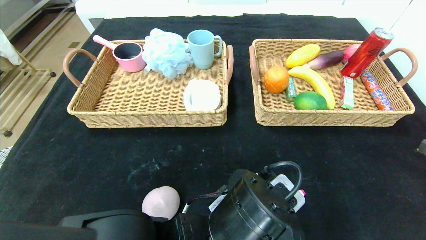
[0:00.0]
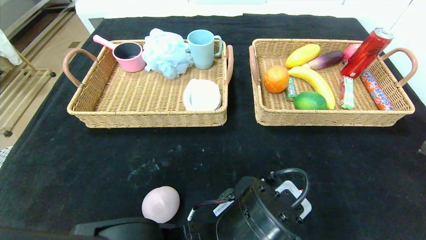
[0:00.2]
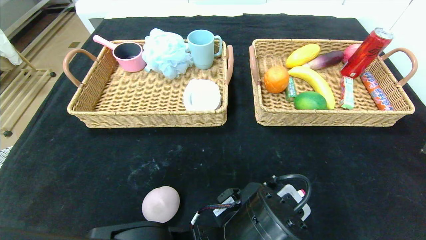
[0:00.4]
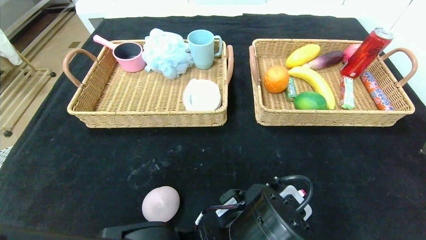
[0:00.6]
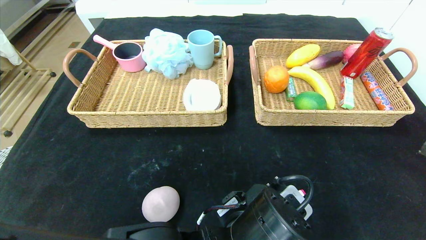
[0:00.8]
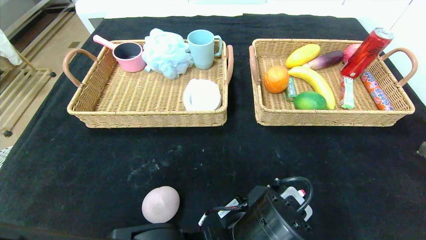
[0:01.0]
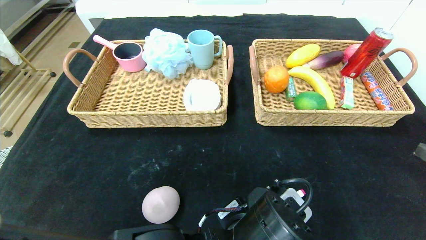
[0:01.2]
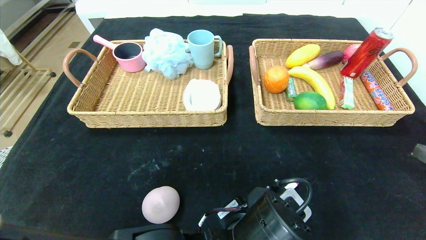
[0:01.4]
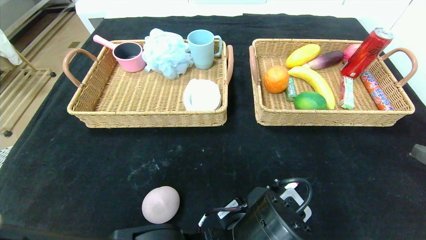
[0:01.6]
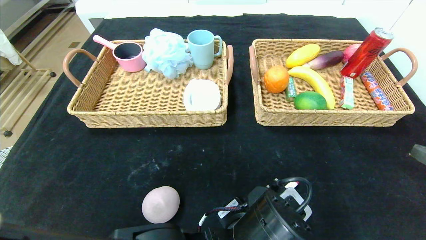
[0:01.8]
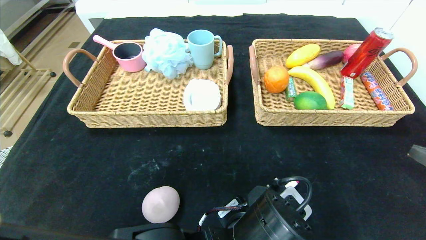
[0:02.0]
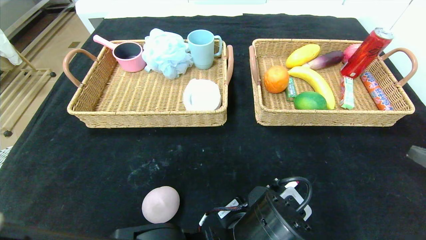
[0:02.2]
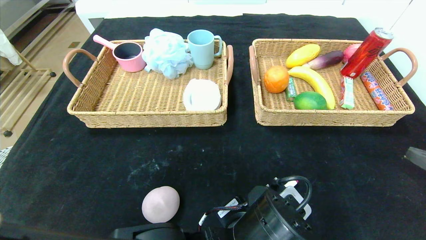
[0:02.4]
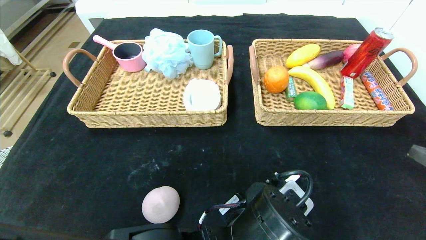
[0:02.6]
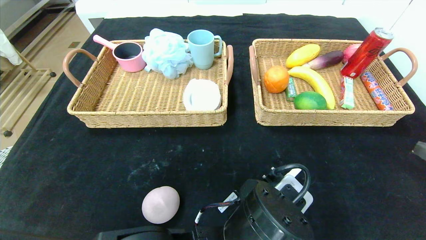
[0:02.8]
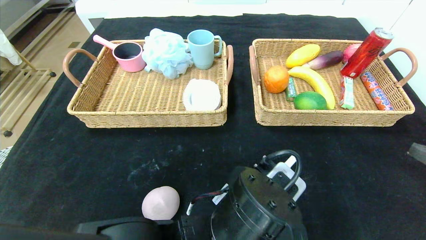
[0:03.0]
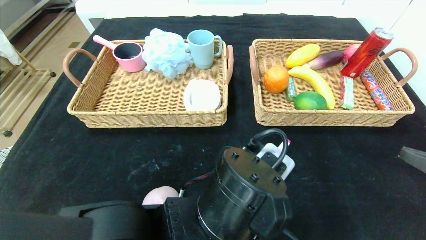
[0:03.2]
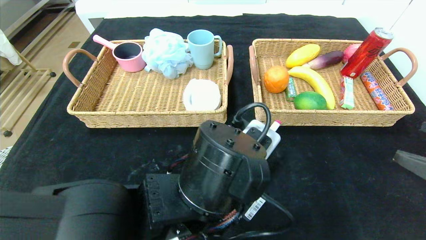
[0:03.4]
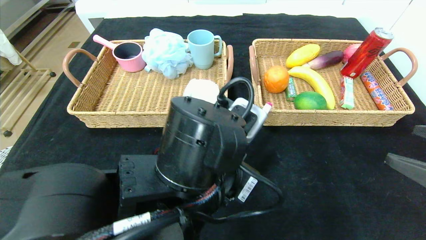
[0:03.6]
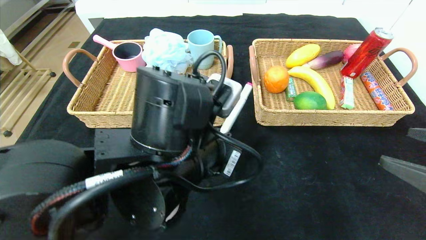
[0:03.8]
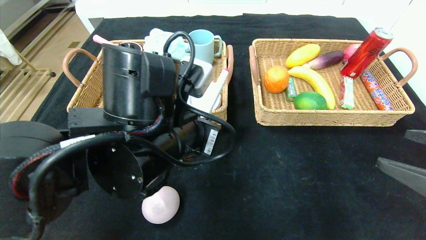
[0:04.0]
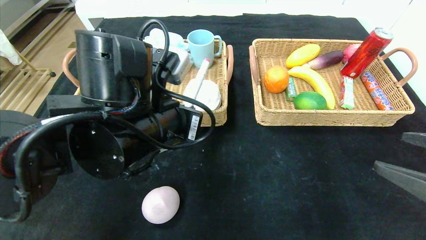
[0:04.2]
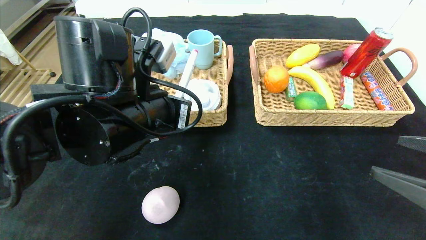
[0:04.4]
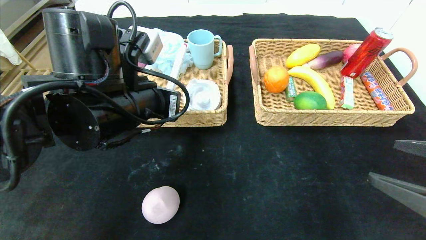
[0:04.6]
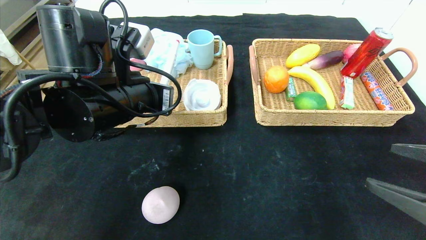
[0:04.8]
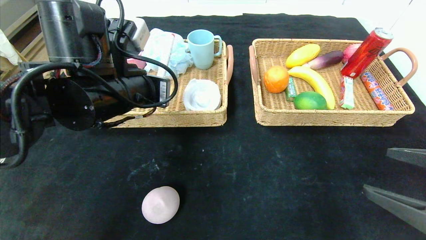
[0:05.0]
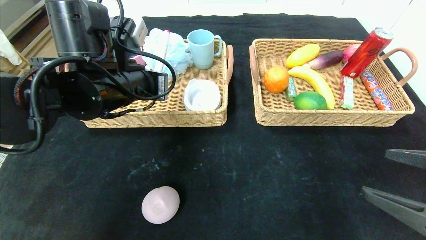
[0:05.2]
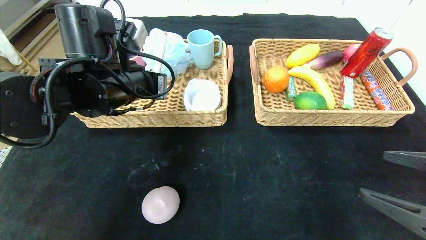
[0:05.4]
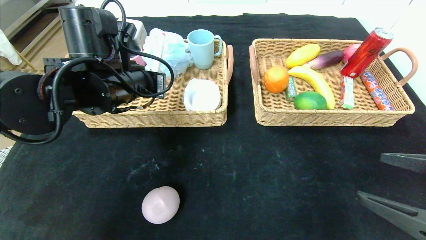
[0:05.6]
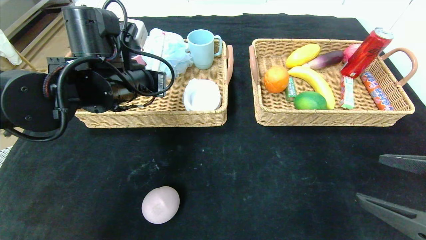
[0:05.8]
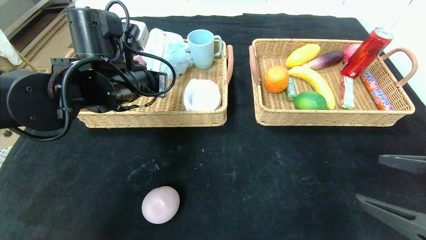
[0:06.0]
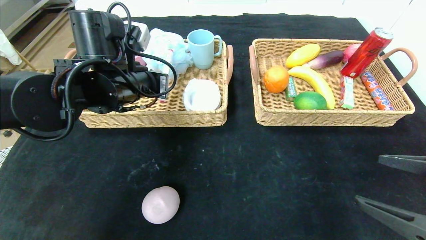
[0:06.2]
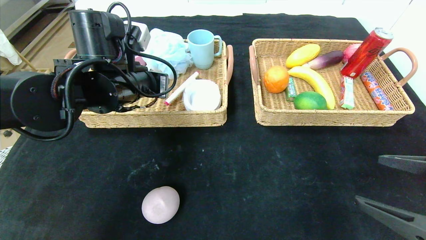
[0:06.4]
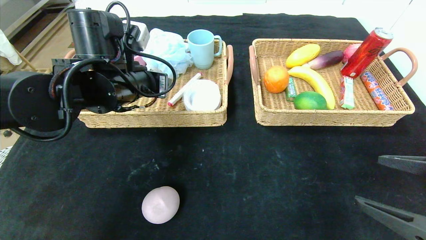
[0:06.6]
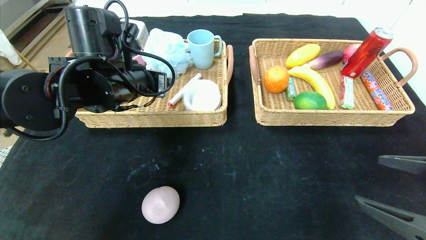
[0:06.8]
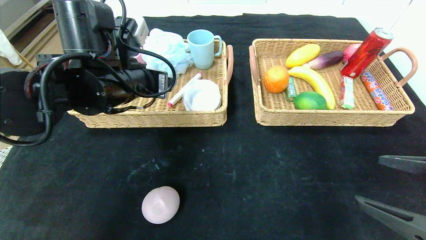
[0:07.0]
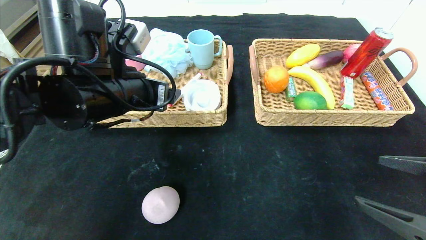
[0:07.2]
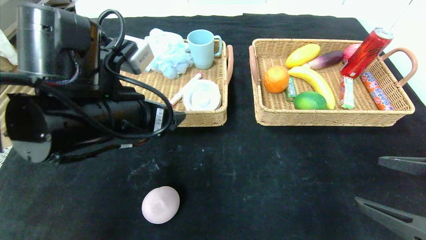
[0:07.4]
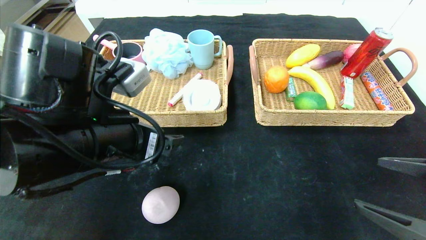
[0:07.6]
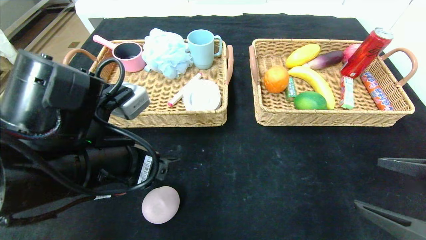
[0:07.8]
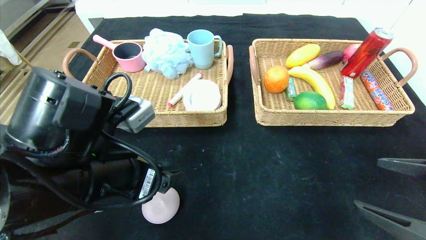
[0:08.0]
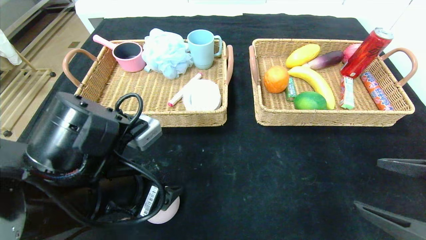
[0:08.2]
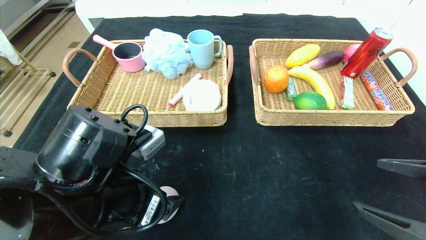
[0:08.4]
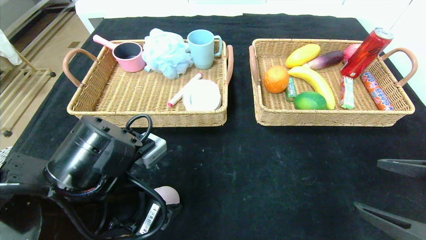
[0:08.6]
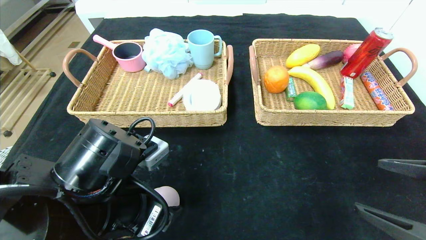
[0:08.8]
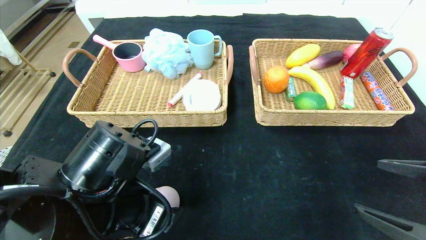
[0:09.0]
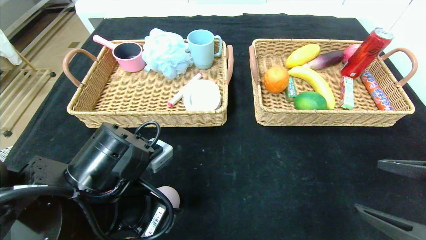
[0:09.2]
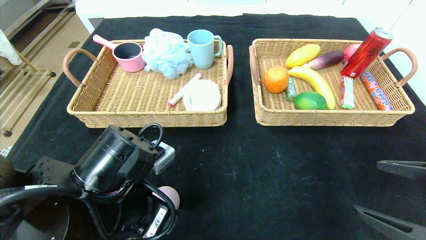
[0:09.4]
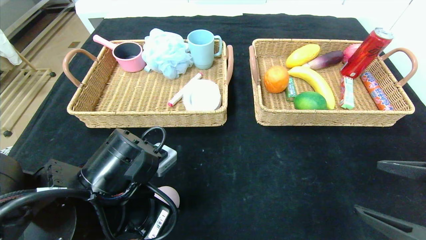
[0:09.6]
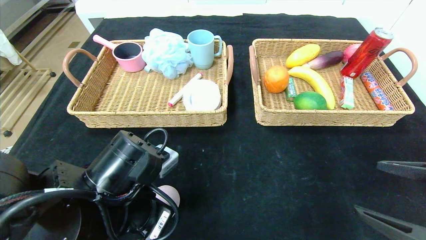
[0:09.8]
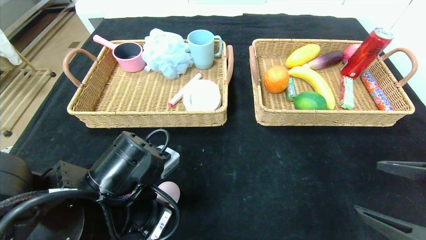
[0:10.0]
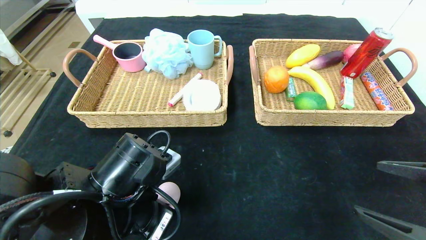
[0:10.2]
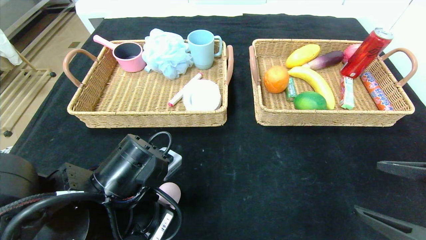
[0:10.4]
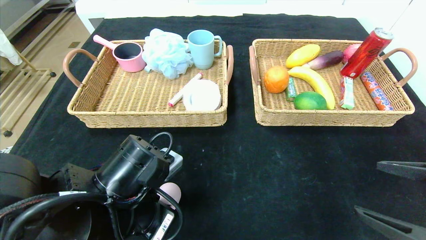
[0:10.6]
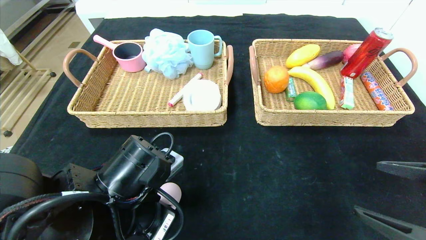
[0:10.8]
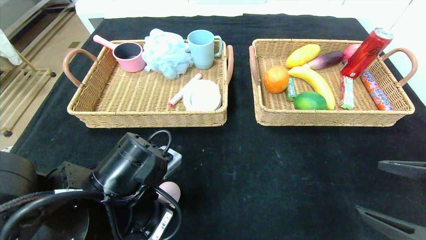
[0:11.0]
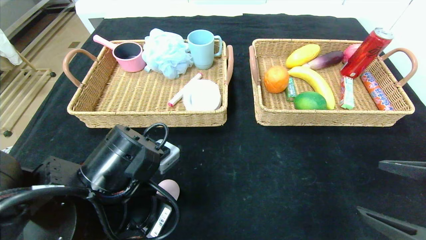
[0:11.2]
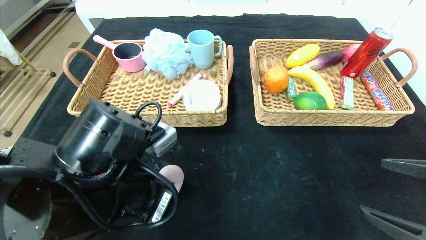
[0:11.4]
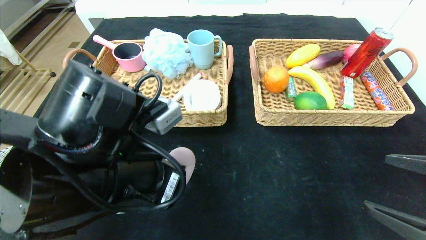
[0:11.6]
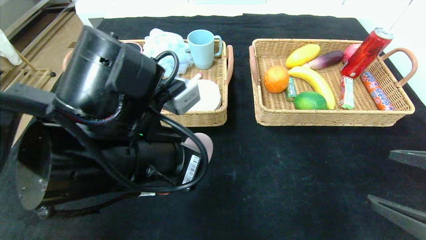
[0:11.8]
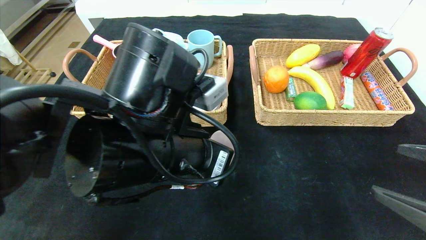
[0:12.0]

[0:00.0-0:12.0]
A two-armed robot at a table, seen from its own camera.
Step, 0:00.0 to 0:06.4: Grasp the pink marker and put it in the left basket.
0:00.0 to 0:01.6: The left gripper closes.
0:01.6 to 0:03.0: There are only small adjustments of the grippers.
0:03.0 to 0:04.4: The left gripper shifts about 20 cm to the left, upward and forward.
0:04.4 to 0:06.0: The left gripper shifts approximately 10 cm forward.
0:06.0 to 0:07.6: The left gripper heads backward, covering some 15 cm, and opens up.
0:07.6 to 0:09.0: The left gripper travels downward by approximately 5 cm.
0:09.0 to 0:10.4: The left gripper closes its fingers.
0:10.4 to 0:12.0: The left gripper is displaced upward and to the right by about 10 cm.

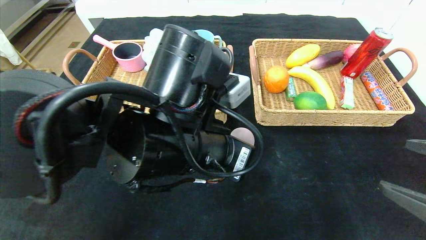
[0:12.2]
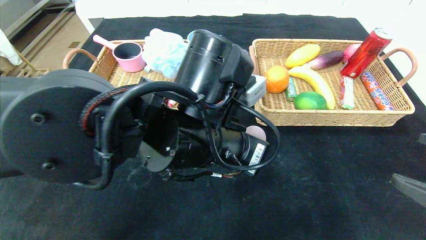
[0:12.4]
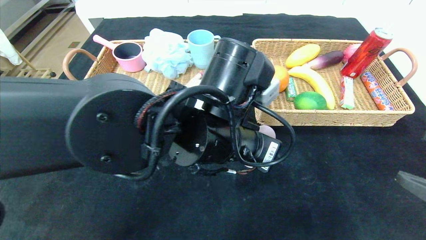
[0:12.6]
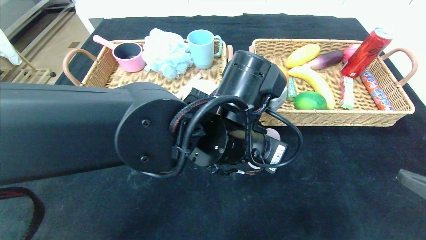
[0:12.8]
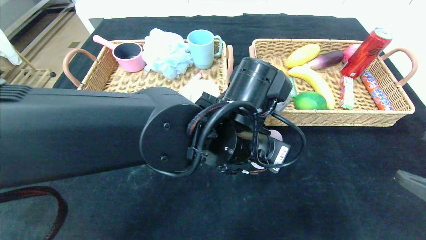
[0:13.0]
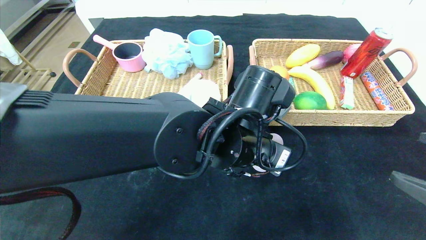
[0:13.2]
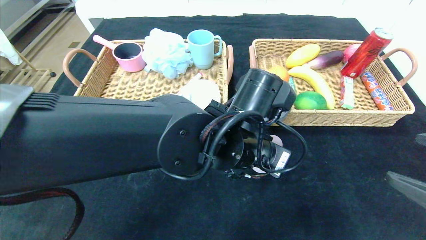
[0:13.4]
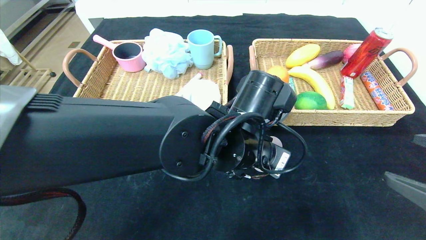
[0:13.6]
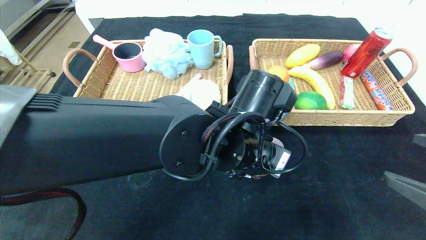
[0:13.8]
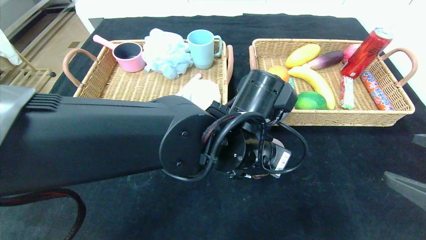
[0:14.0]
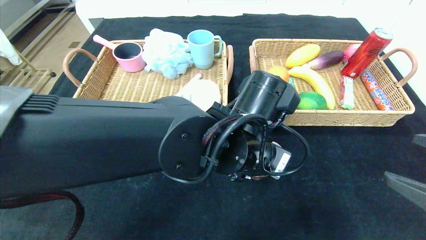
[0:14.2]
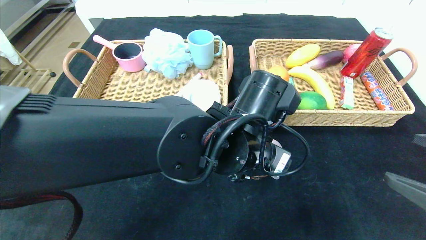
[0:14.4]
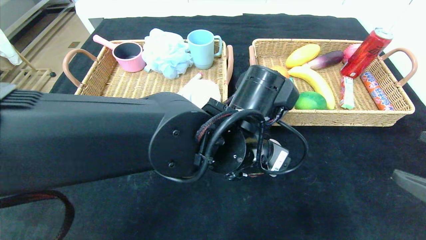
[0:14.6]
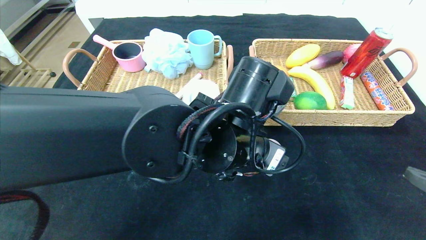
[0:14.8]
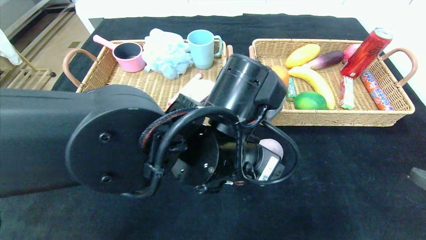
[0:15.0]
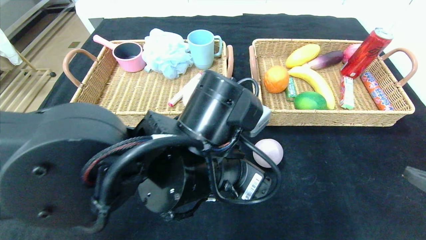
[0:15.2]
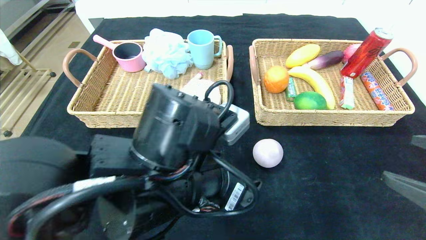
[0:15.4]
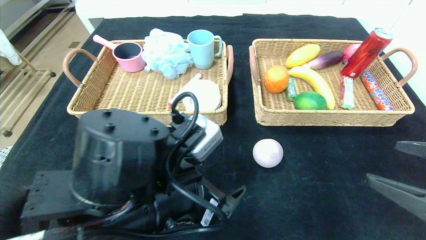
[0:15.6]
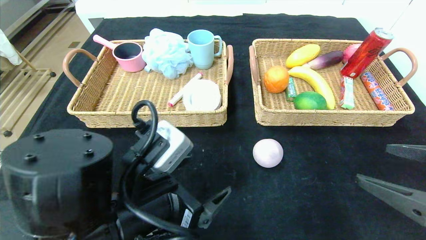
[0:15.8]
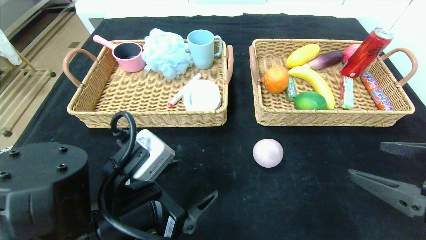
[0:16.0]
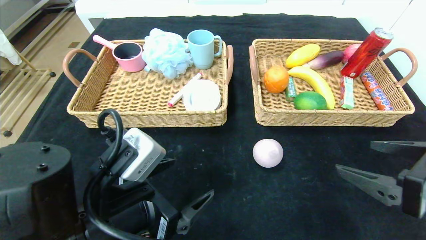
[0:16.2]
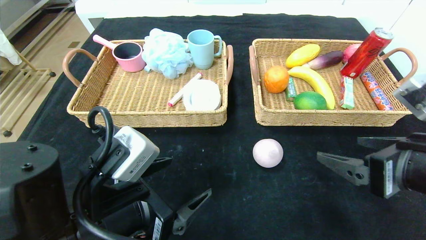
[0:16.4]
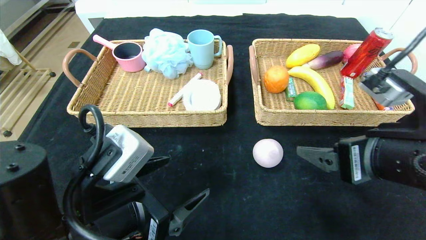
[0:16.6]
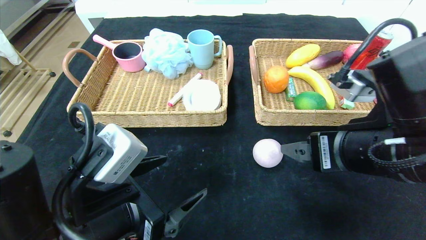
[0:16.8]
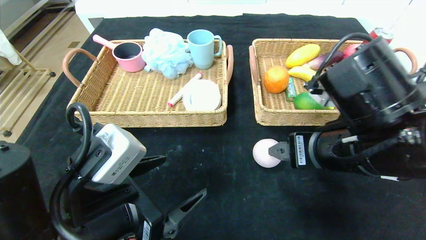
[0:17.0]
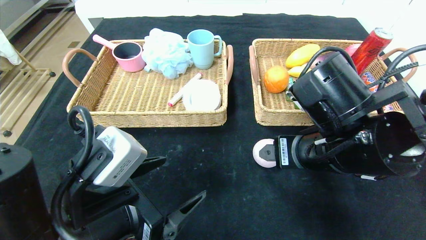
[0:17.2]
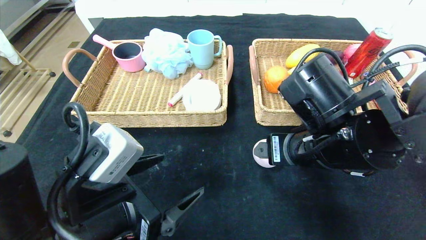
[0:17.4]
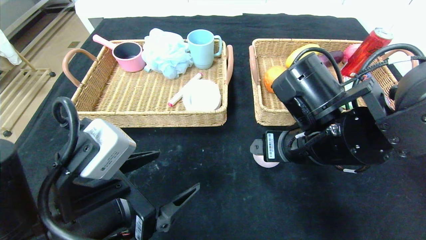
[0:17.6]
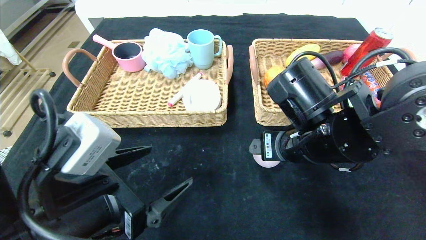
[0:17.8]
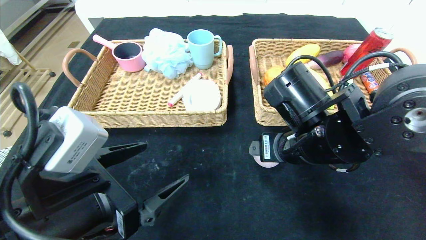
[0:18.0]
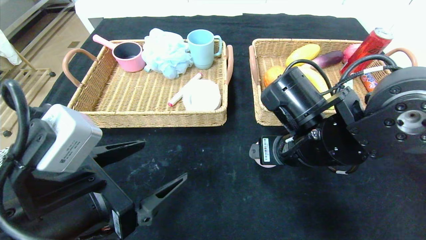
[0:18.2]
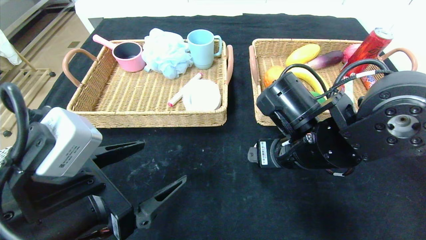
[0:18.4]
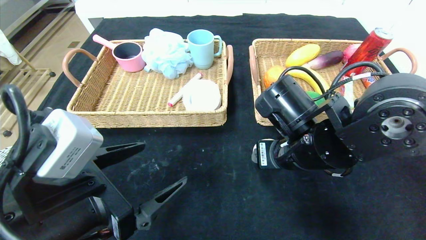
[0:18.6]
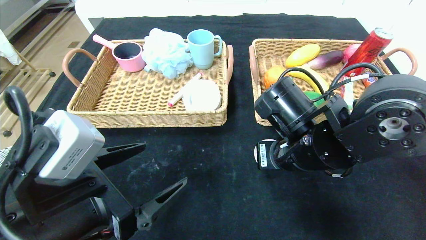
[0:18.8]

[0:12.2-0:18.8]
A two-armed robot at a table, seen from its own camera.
Step, 0:12.2 to 0:15.0: Place the peach in the center of the table.
0:12.2 to 0:13.8: The left gripper travels to the right by approximately 5 cm, and opens its fingers.
0:13.8 to 0:15.4: The left gripper shifts approximately 10 cm to the left and backward, and opens its fingers.
0:15.4 to 0:17.2: The right gripper goes some 20 cm to the left and forward. Meanwhile the left gripper is displaced to the left by about 10 cm.
0:17.2 to 0:18.8: The right gripper closes its fingers.
